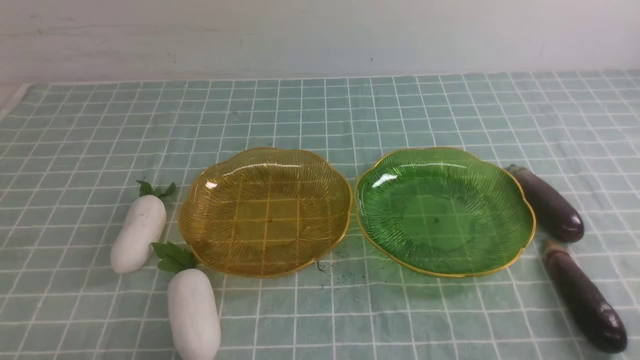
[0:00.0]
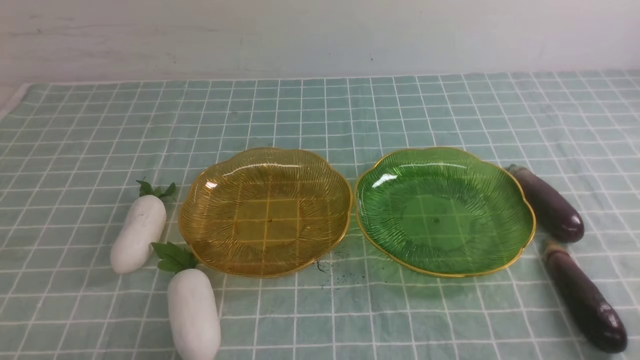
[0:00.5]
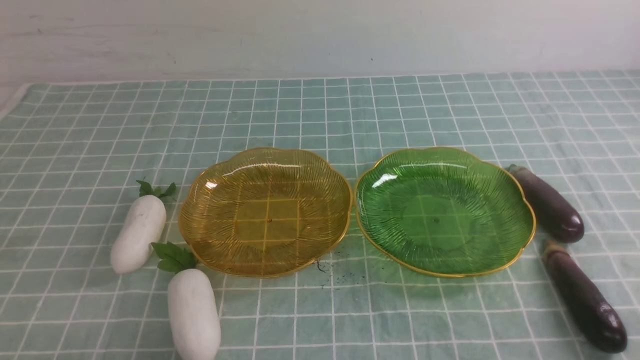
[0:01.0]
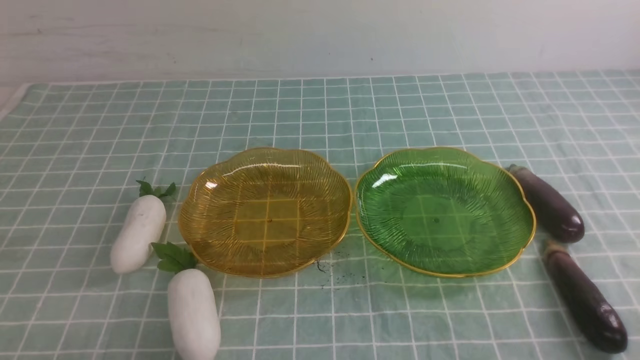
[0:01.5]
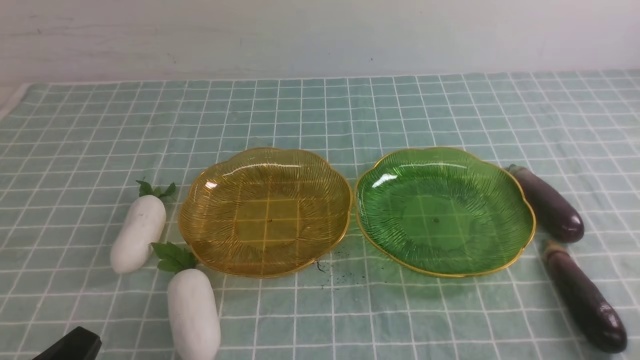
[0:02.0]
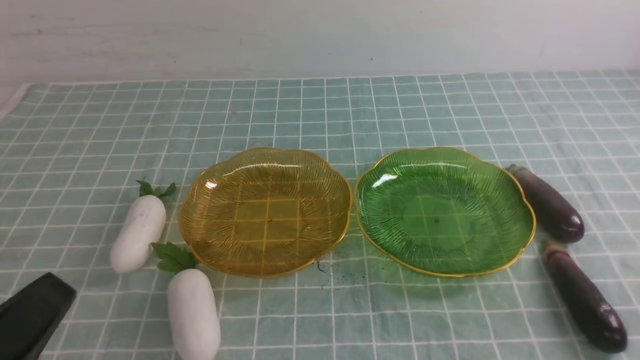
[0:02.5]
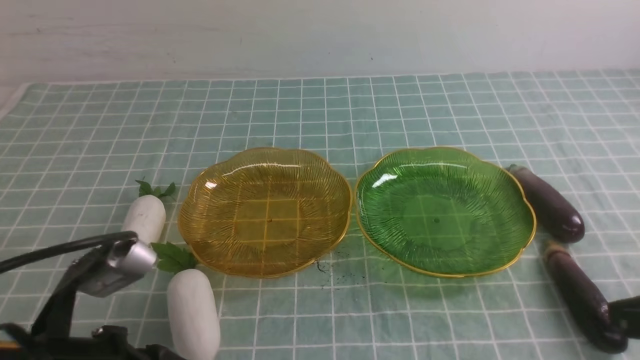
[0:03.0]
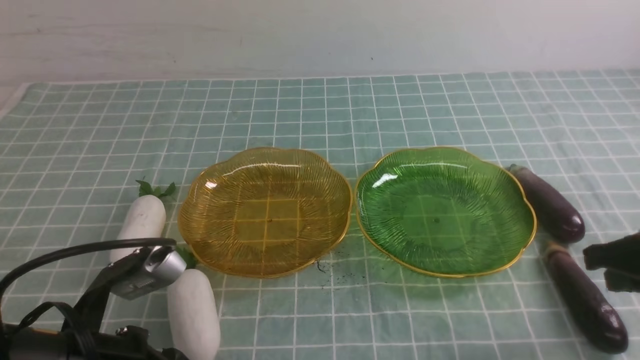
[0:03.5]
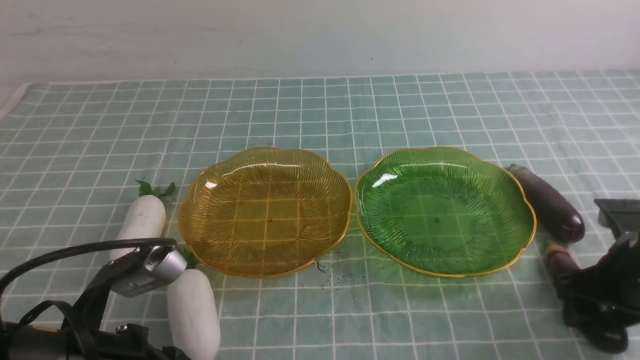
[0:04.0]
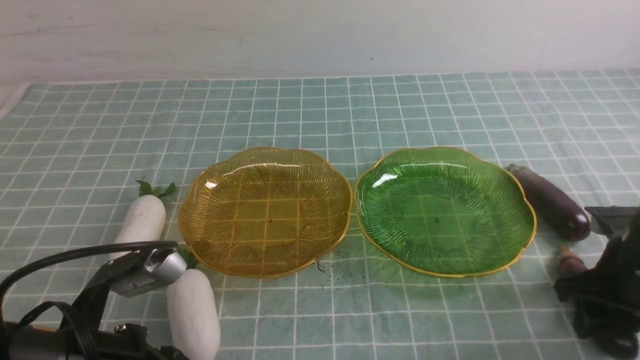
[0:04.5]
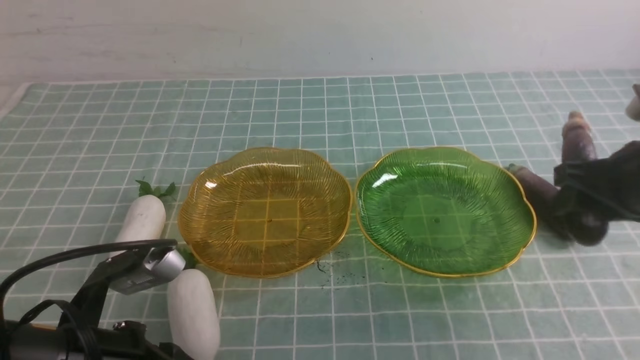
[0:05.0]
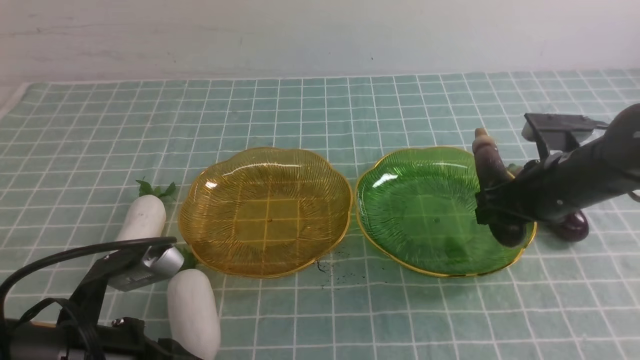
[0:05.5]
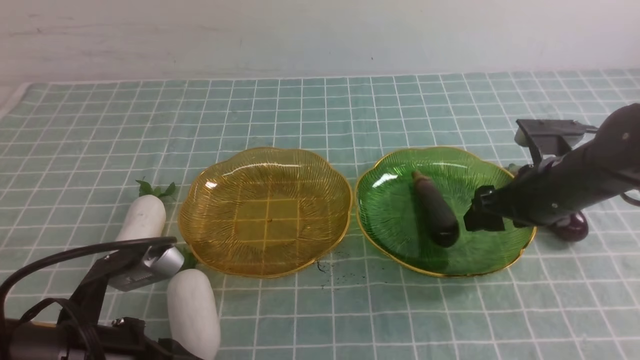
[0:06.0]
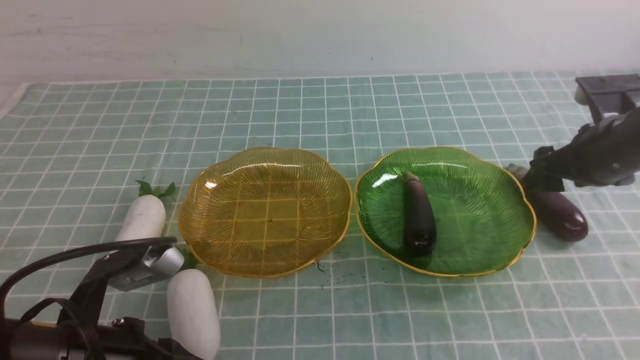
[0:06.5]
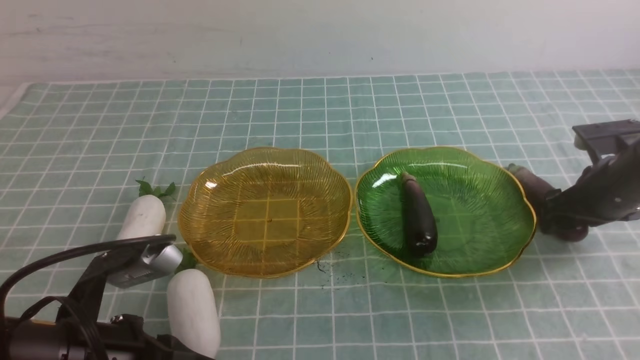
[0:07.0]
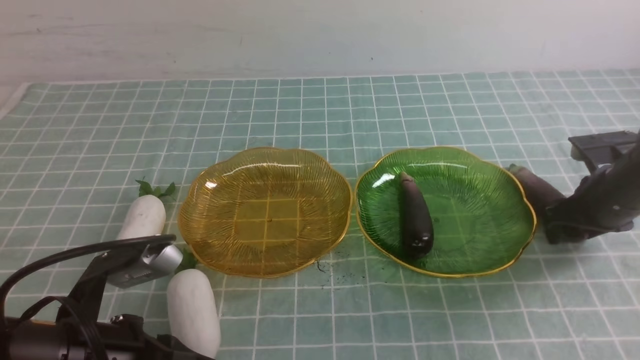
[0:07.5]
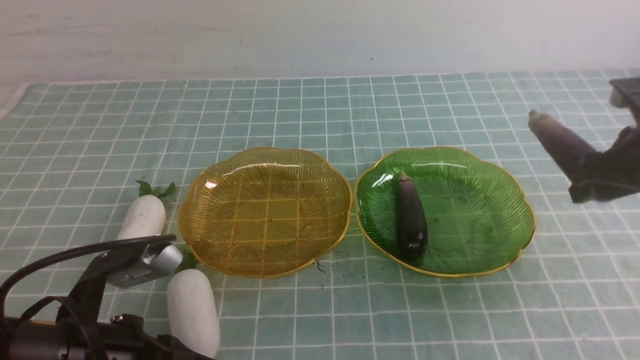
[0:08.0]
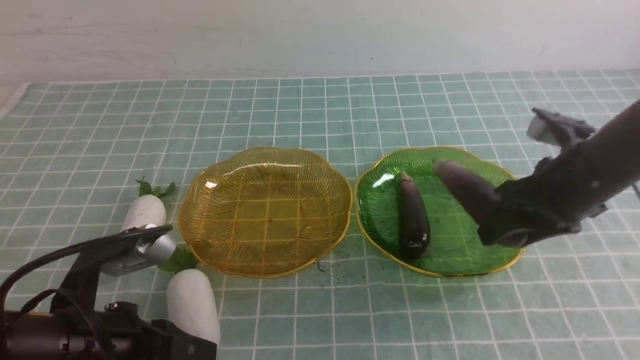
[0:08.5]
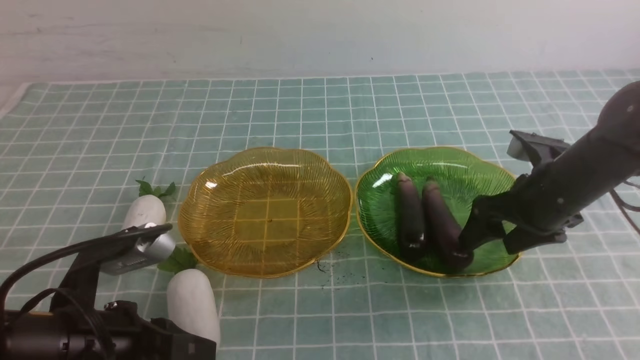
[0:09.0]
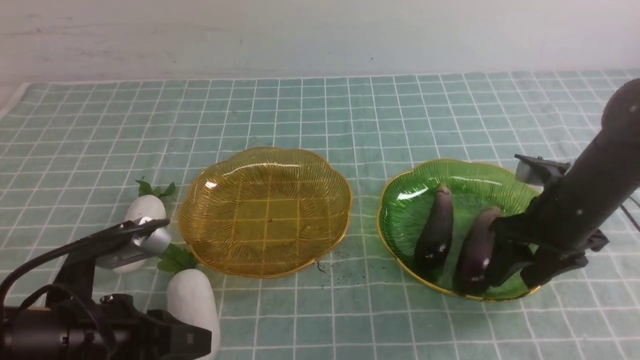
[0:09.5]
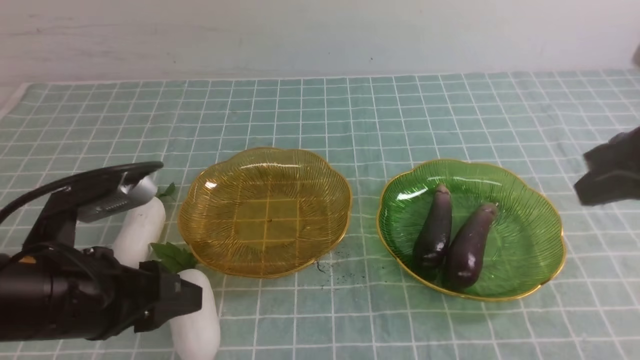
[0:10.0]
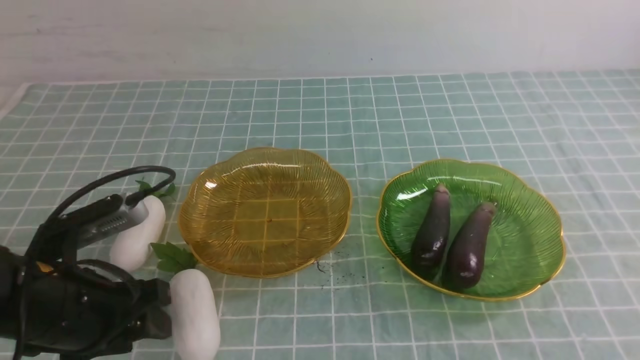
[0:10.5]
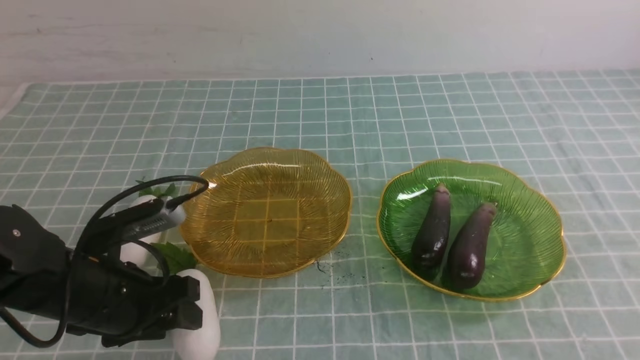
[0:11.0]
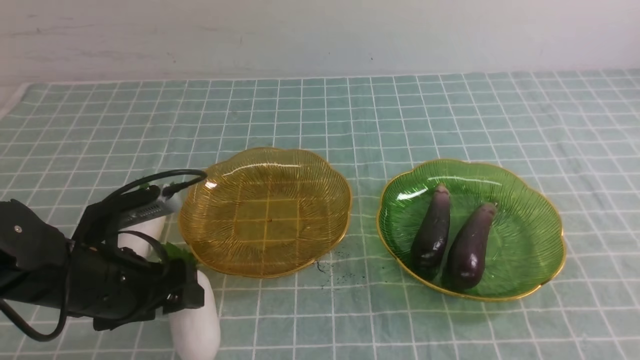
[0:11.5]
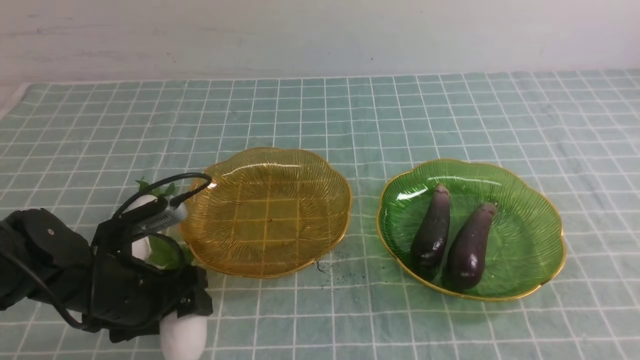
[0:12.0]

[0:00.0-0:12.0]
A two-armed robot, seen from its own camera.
Step, 0:00.0 to 0:08.5: use the right arm to grab an eggplant and put it into the right plate.
0:02.0 to 0:04.0: The right gripper moves forward, some 20 cm, and opens its fingers. The left gripper goes about 10 cm forward.
0:04.0 to 0:06.0: The right gripper shifts some 10 cm forward and to the left.
0:06.0 to 0:08.0: The right gripper moves to the right and upward, approximately 10 cm.
0:08.0 to 0:10.0: The right gripper goes about 15 cm upward, backward and to the left, and closes up, while the left gripper opens.
0:10.0 to 0:12.0: The left gripper moves downward and forward, some 10 cm, and opens up. Meanwhile the right gripper shifts some 10 cm backward.

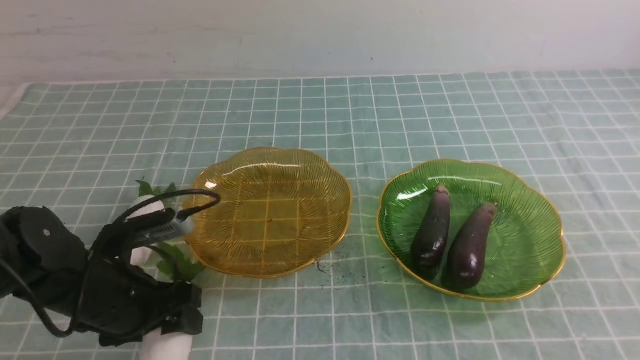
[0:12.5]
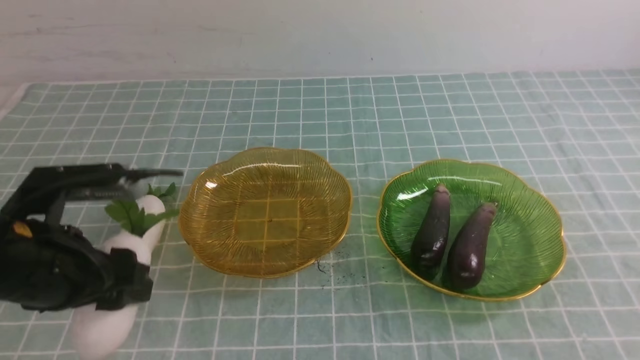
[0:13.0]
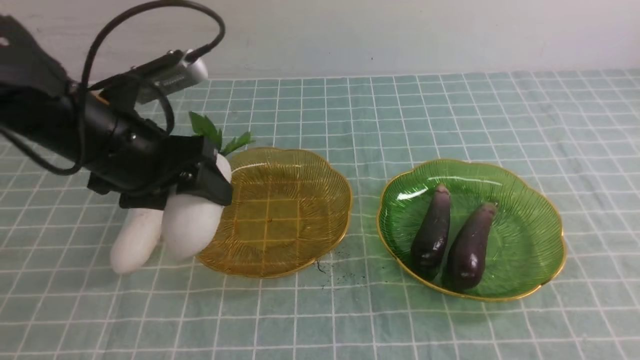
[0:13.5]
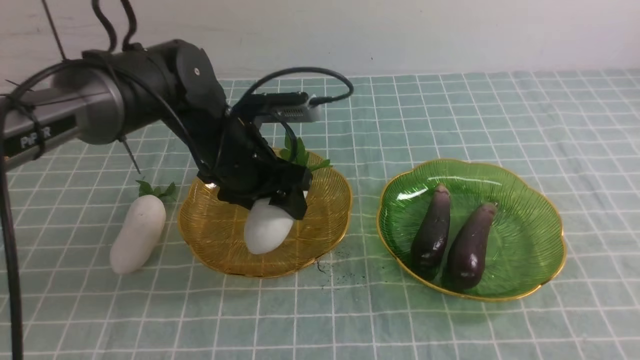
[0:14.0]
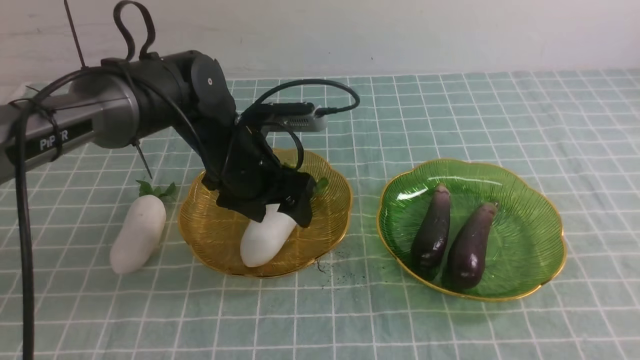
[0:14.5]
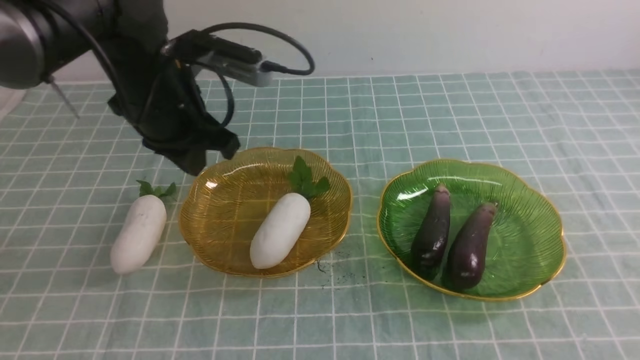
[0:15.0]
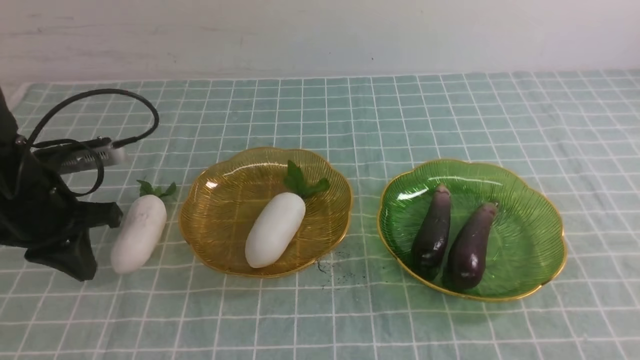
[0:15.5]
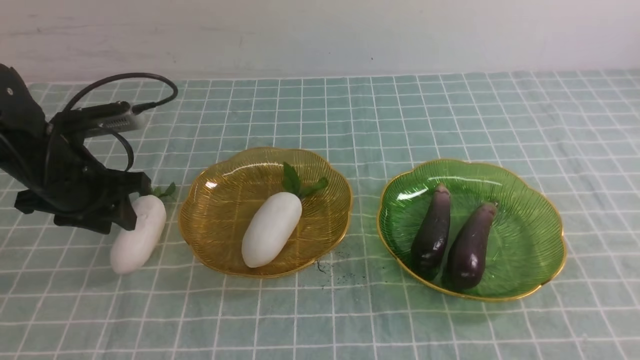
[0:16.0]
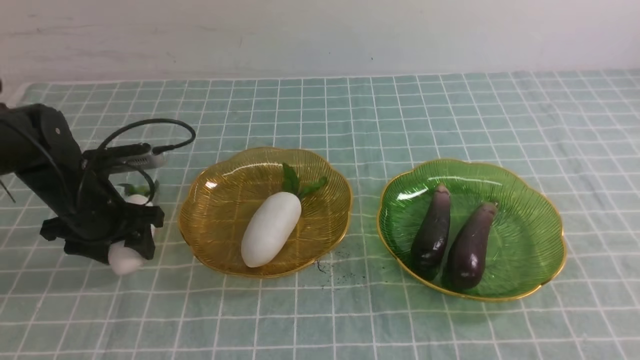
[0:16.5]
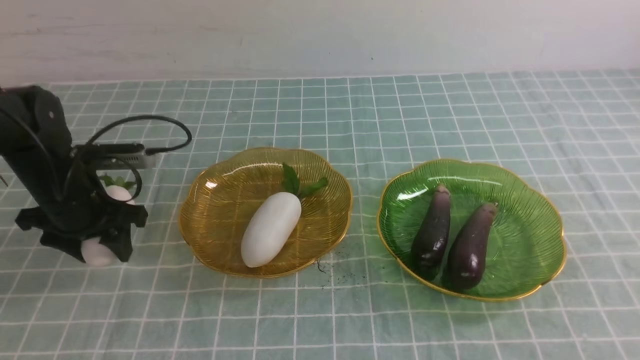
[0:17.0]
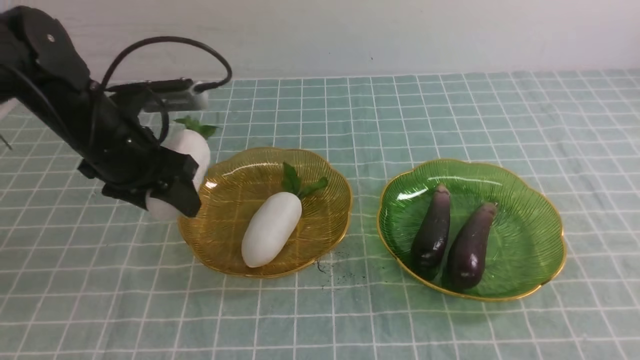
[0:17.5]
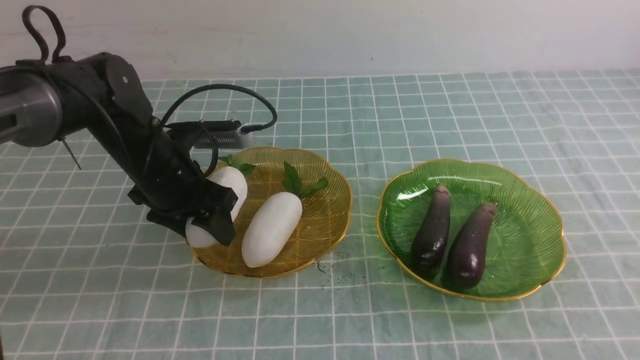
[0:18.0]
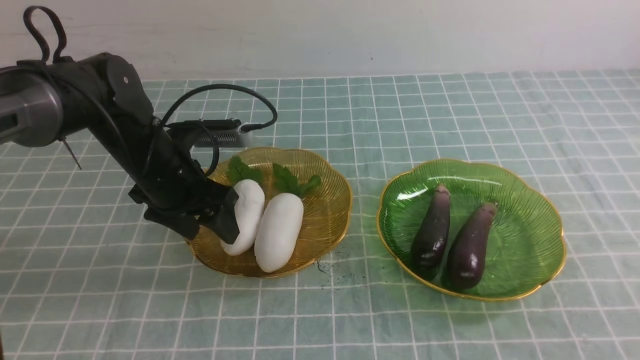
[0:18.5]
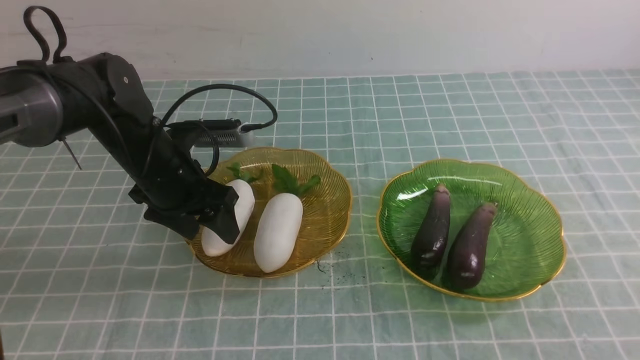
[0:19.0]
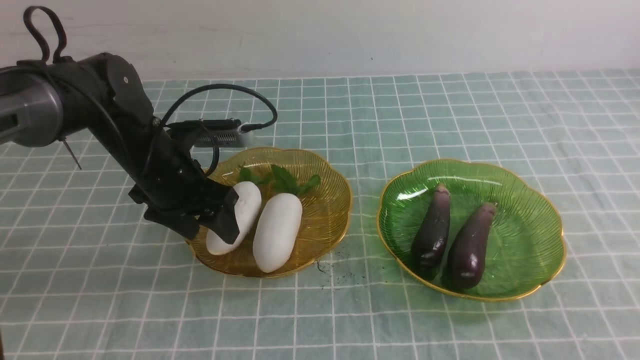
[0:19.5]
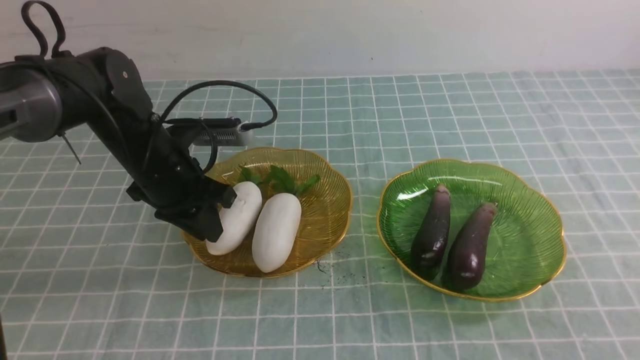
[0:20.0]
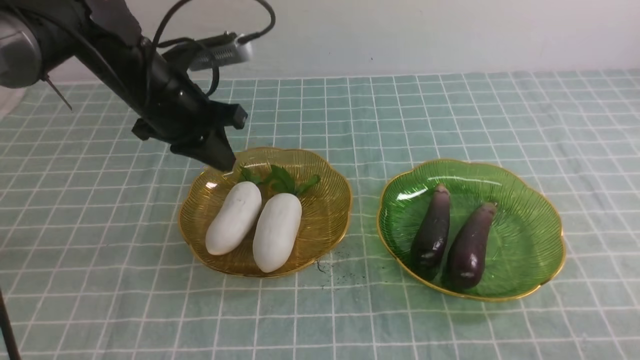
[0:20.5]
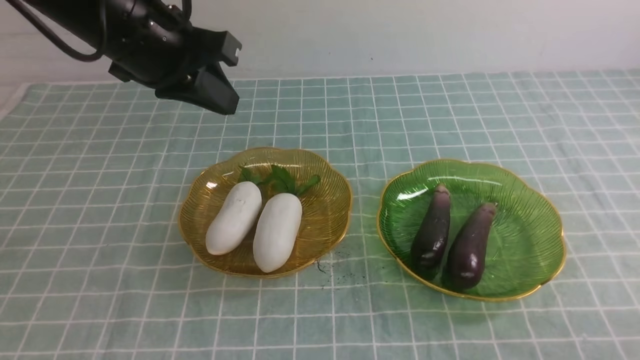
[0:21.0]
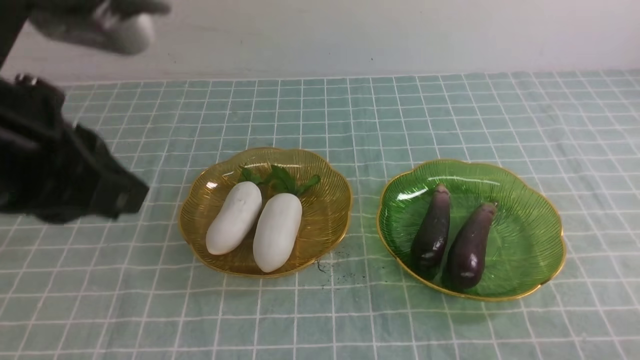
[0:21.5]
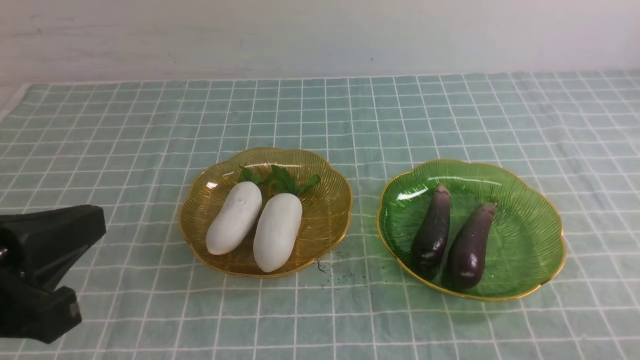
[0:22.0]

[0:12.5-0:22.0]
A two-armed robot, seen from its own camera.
Step, 0:12.5 to 0:18.0: use the left arm to grab a radish and put it into the left plate.
0:12.5 to 0:14.5: The left gripper shifts approximately 20 cm forward and to the right.
0:14.5 to 0:16.5: The left gripper travels to the left by approximately 20 cm, and closes, then opens again.
0:16.5 to 0:18.0: The left gripper moves to the right, about 10 cm.
0:18.0 to 0:20.0: The left gripper closes its fingers. Meanwhile the right gripper goes approximately 10 cm downward and backward.
0:20.0 to 0:22.0: The right gripper is displaced downward by about 10 cm; the left gripper heads backward and upward, covering about 30 cm.
